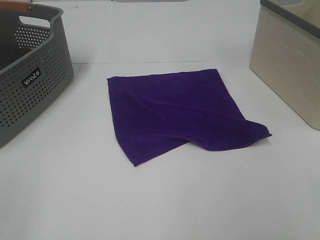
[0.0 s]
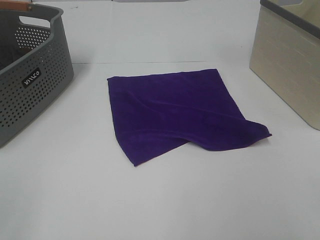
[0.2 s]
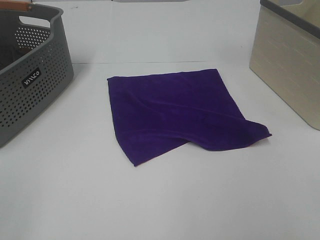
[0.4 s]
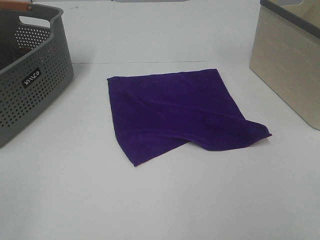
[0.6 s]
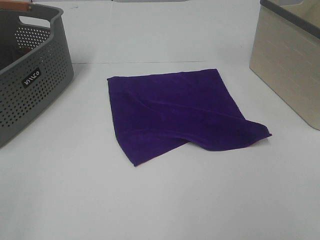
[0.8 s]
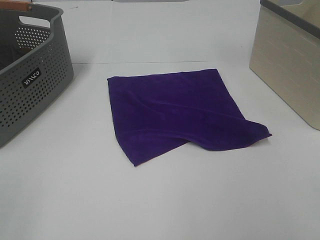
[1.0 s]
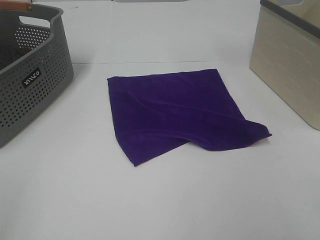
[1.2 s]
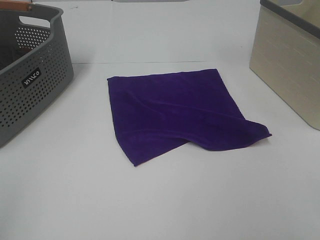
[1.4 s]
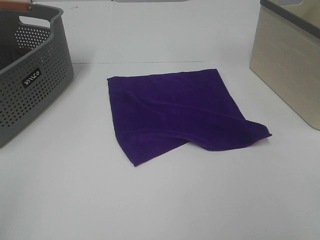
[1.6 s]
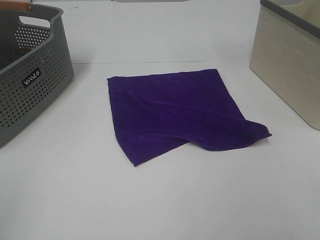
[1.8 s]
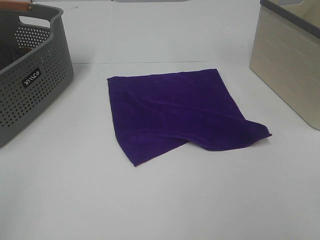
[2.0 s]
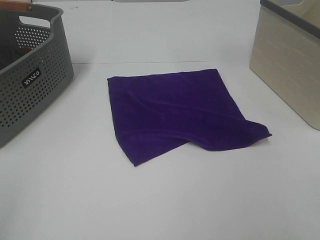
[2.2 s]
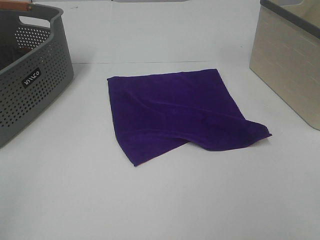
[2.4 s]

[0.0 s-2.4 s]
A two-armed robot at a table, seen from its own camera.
Task of the whole recording: Remove the towel and place it.
1.2 to 2.4 s: The two grippers keep their place.

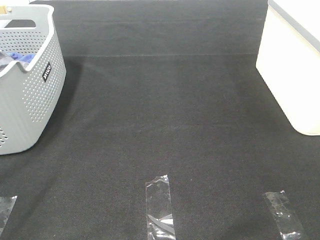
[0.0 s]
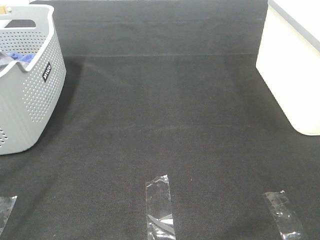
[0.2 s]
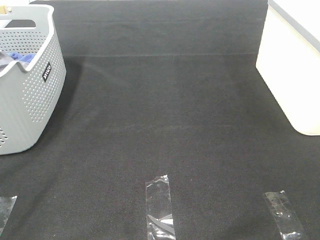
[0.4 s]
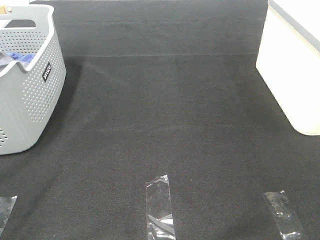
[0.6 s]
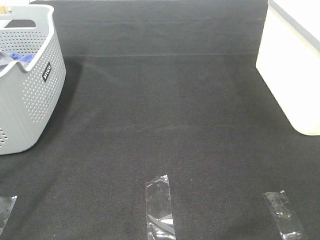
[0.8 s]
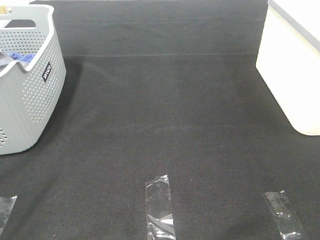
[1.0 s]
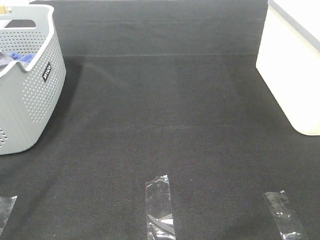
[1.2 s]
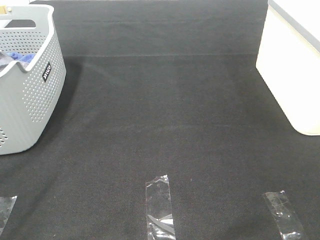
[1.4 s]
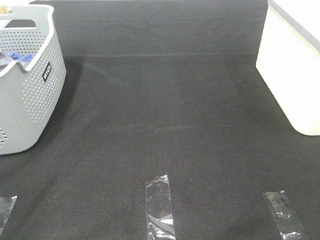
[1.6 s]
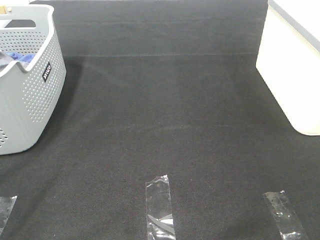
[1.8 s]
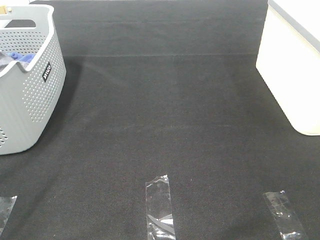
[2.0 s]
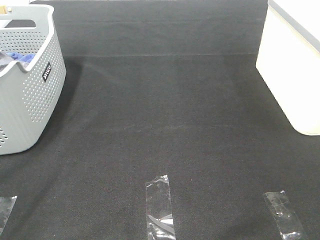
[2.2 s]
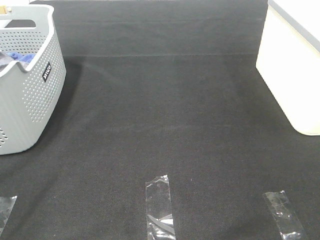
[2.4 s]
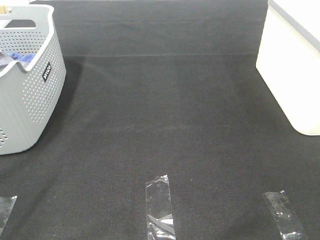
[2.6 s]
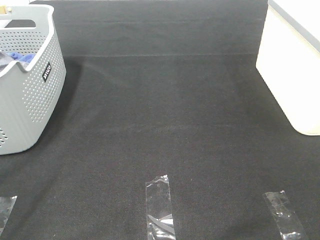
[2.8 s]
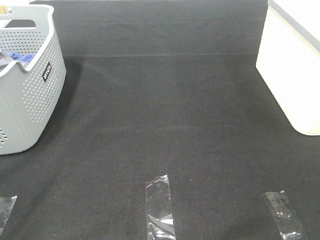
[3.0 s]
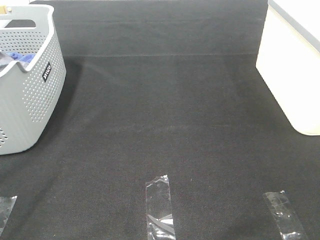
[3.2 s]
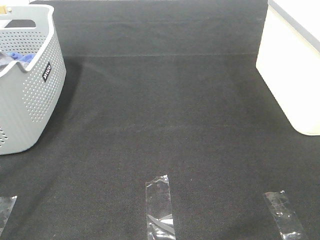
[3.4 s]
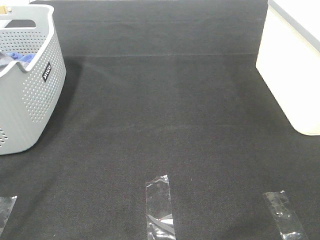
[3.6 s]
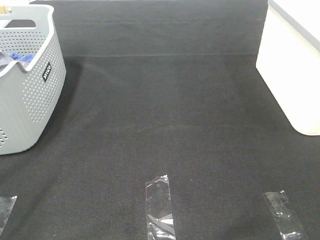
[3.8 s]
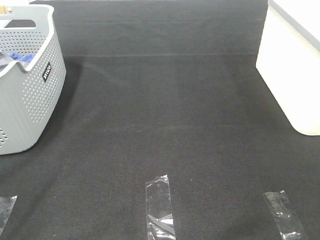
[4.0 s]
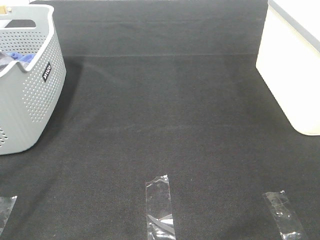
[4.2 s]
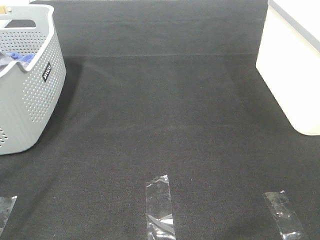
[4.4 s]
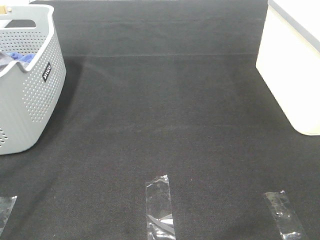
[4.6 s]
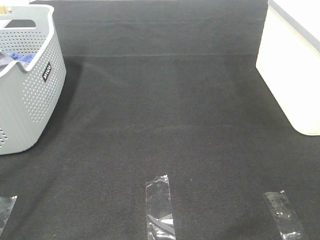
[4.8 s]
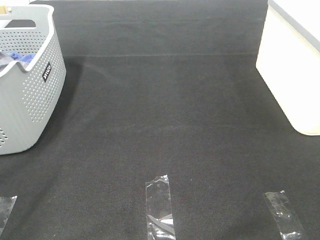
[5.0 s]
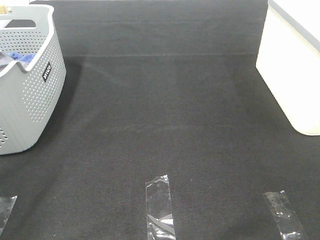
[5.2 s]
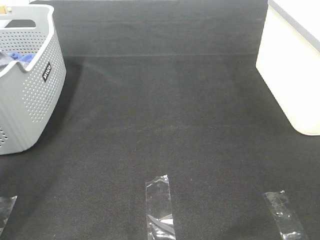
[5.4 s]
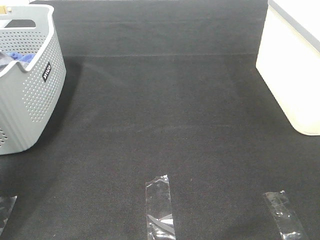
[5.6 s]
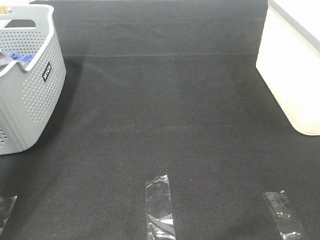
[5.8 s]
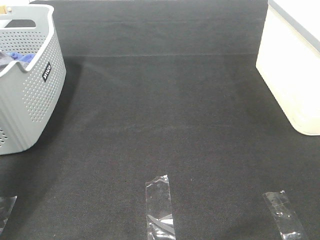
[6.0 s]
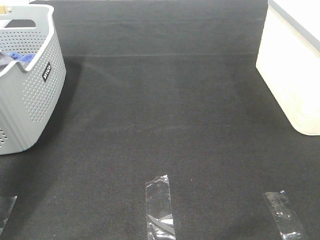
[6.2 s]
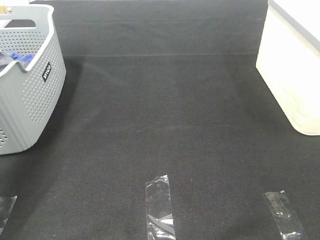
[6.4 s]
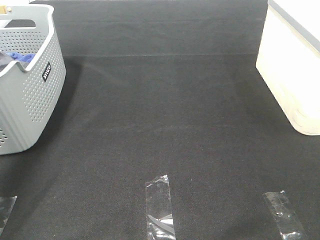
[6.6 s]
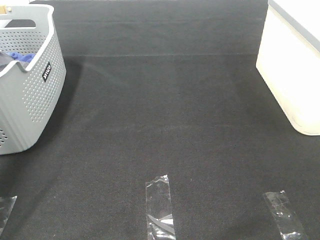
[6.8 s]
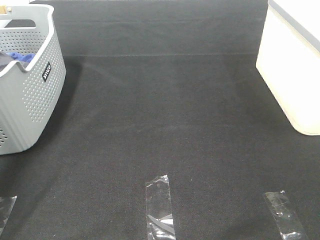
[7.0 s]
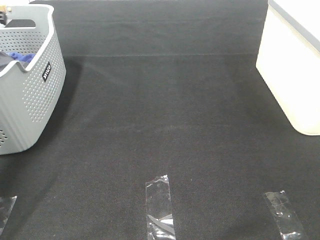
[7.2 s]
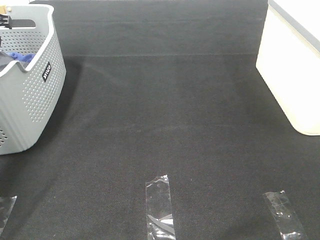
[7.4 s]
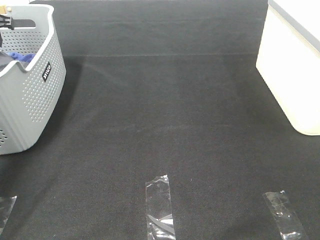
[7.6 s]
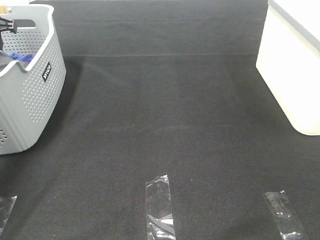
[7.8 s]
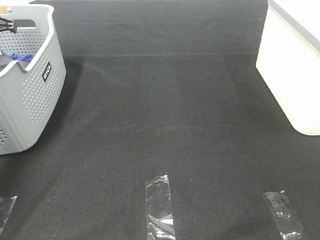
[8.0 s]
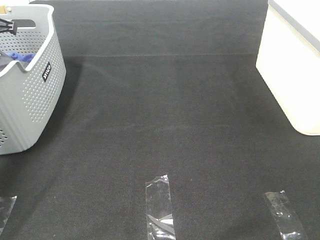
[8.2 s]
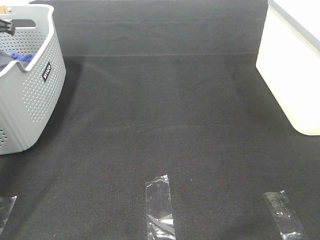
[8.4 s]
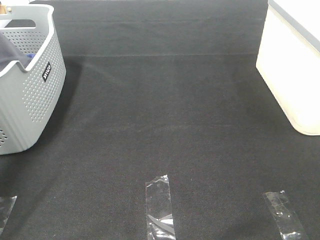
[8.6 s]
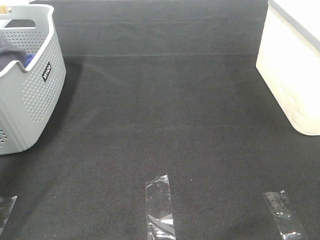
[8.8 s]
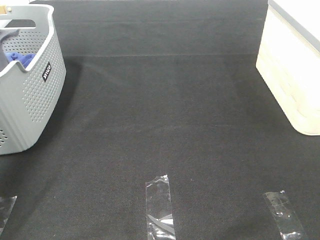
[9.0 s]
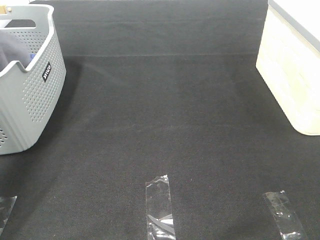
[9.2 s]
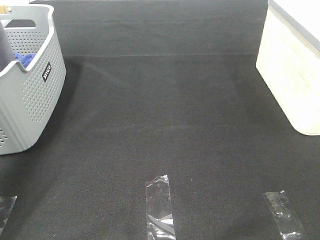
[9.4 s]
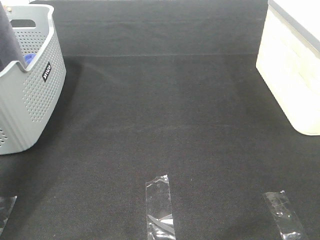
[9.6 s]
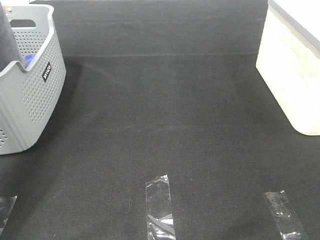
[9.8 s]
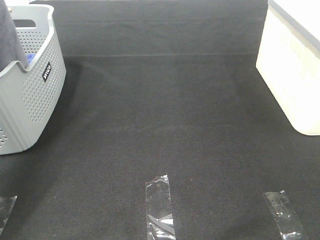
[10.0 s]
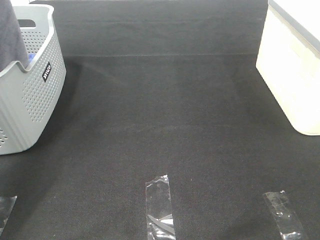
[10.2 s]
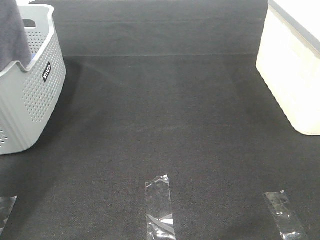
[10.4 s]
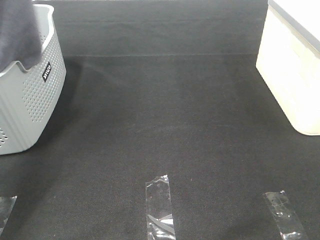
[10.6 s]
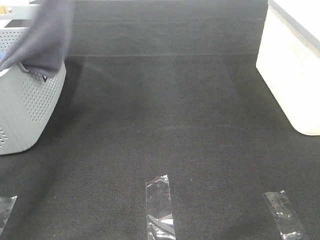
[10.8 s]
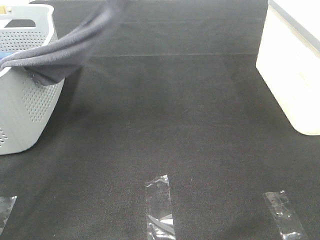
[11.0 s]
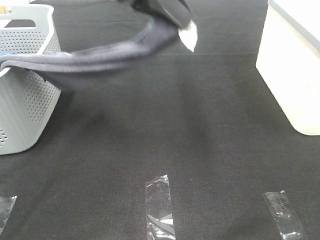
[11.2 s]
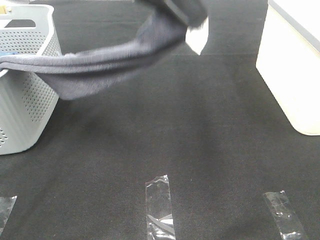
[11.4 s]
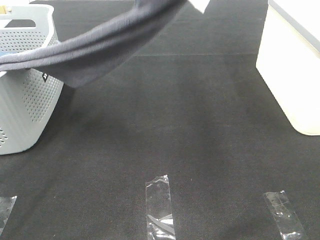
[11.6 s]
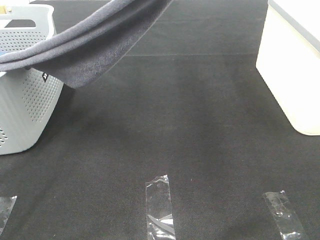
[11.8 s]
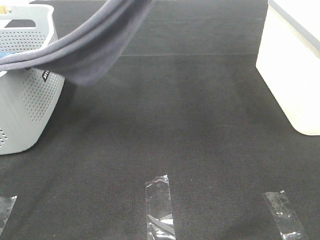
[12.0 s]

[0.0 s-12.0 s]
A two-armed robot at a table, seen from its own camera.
Task of the whole recording: Remove the towel and place it.
0.0 to 4.4 s: Both grippers stay about where they are.
4.4 to 6.0 s: The left gripper travels forward by approximately 30 cm.
6.0 to 7.6 s: The left gripper moves forward and downward, roughly 20 cm.
7.6 to 9.0 s: The left gripper heads upward and backward, covering approximately 20 cm, and closes.
9.0 to 10.4 s: The left gripper heads backward, upward and to the right, covering about 15 cm.
10.4 to 12.0 s: The left gripper moves to the right, about 20 cm.

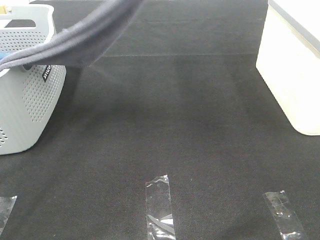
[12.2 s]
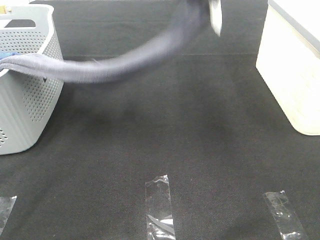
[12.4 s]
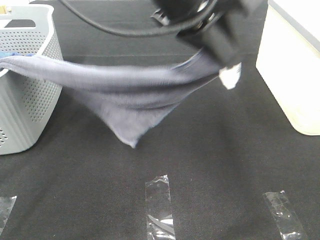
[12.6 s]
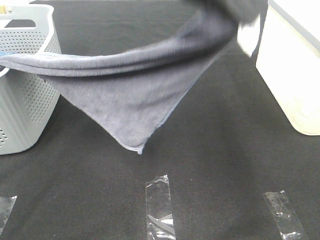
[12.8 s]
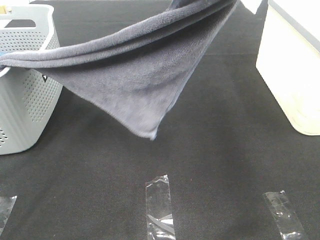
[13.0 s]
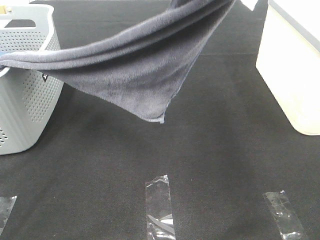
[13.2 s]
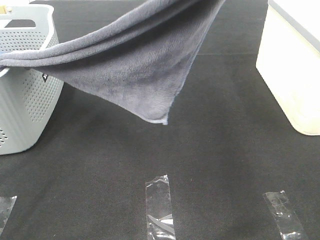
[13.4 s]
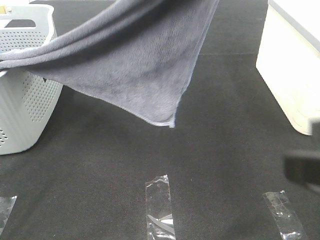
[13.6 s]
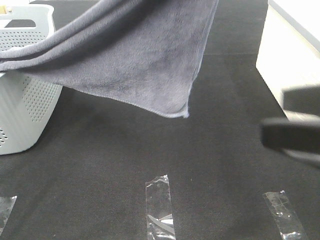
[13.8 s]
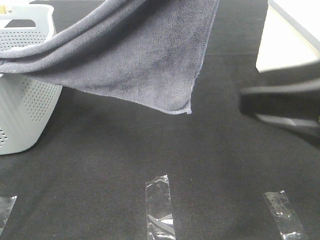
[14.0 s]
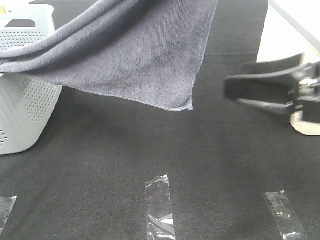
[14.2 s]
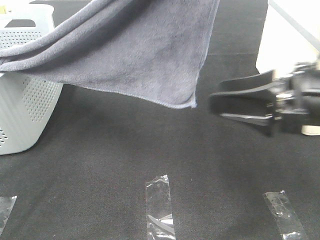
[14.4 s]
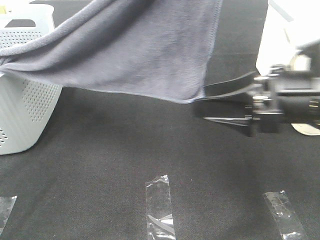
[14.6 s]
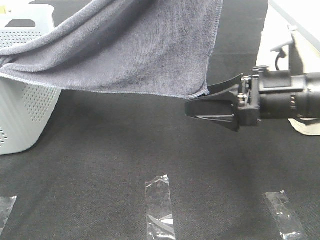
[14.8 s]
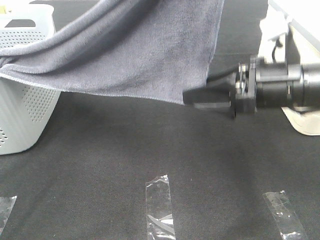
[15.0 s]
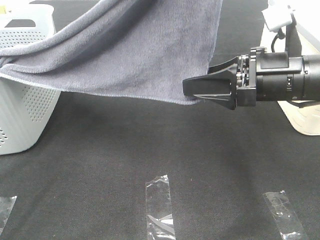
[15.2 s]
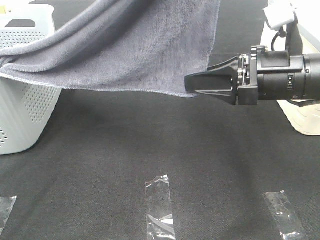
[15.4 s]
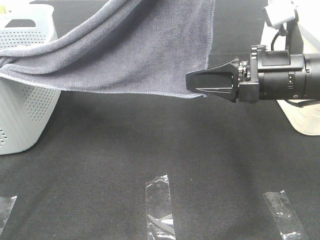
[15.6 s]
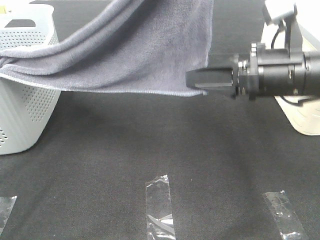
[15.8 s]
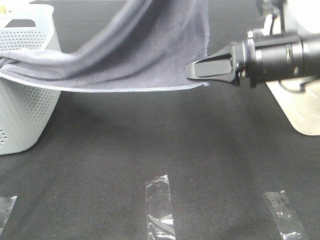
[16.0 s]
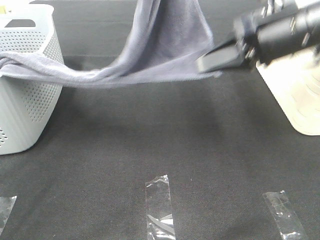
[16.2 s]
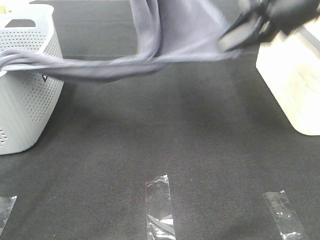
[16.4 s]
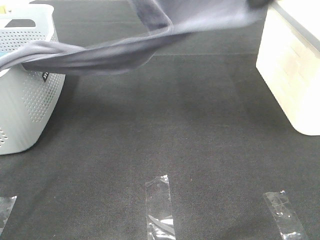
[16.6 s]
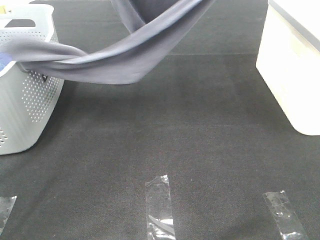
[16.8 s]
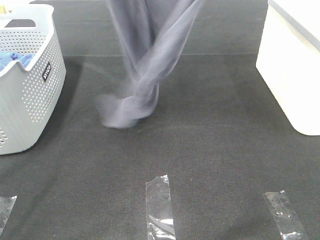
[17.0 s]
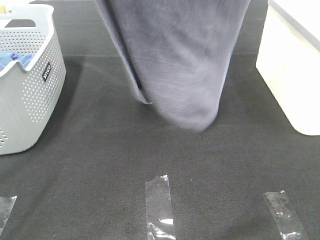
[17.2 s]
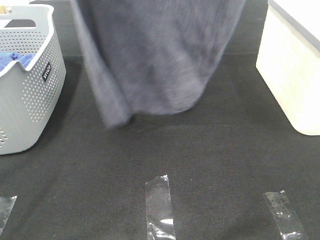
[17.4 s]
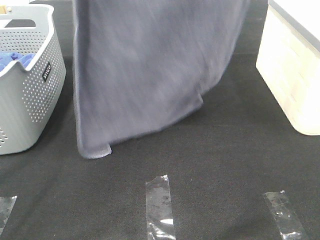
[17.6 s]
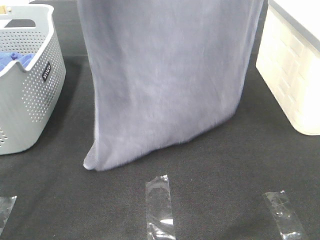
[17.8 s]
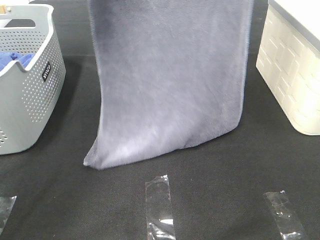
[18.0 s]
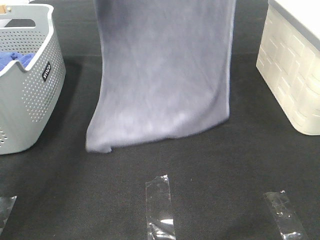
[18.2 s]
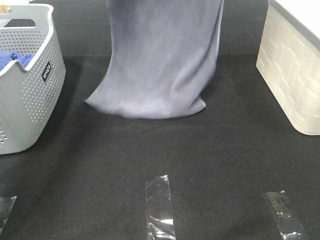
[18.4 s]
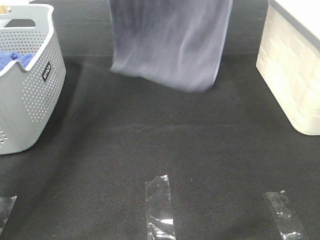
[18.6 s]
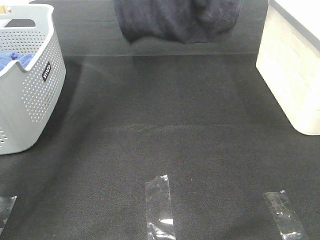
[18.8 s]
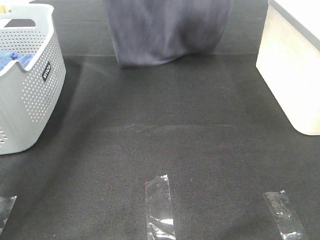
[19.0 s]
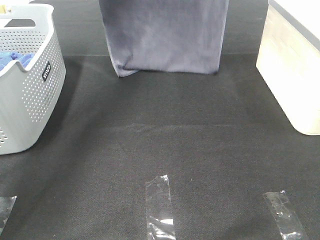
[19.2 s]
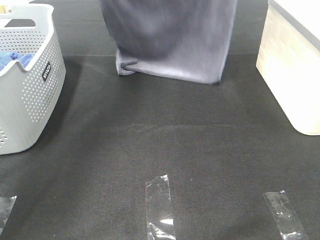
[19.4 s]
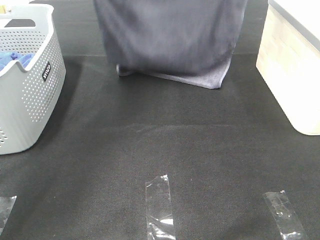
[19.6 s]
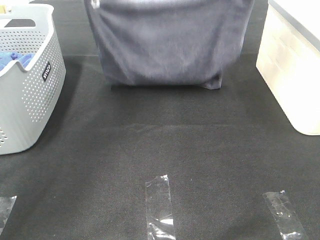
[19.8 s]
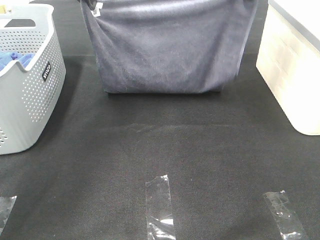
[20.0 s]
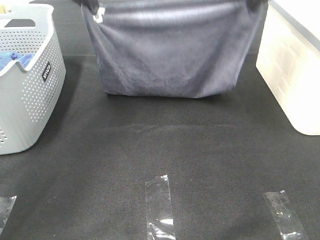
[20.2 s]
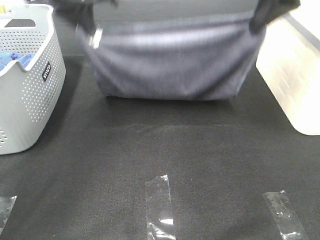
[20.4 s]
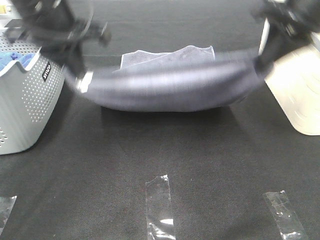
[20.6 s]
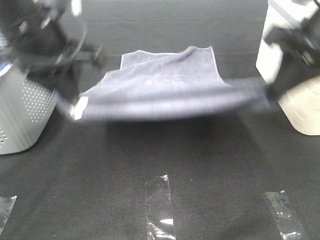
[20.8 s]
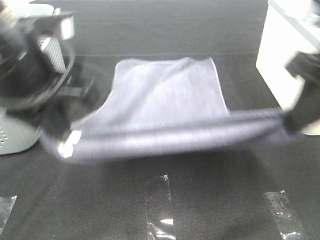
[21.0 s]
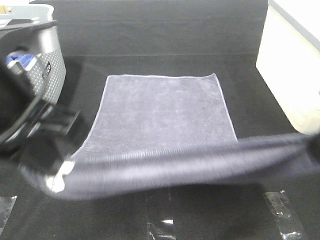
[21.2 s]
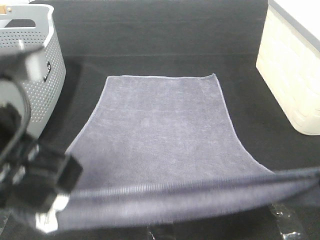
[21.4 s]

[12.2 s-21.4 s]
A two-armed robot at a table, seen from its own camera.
Task of the whole recording: Remove the towel and place it.
Step, 12.2 to 14.0 s: Right hand: grab a corner of the grey towel and straighten it.
Step, 14.2 to 17.8 s: Left hand: spread the grey towel flat on the table.
Step, 14.2 to 18.2 s: Right hand: spread the grey towel flat on the table.
12.2 to 13.8 s: The right gripper travels forward and to the left by approximately 10 cm; the left gripper shifts roughly 10 cm backward and upward.
13.8 to 15.2 s: The right gripper heads forward and downward, covering approximately 15 cm, and closes up.
15.2 to 16.8 s: The right gripper travels upward by some 25 cm, and closes up. The left gripper is displaced forward and to the left by roughly 15 cm.
16.8 to 18.4 s: The left gripper travels forward and downward by about 15 cm, while the right gripper travels forward by about 15 cm.
18.4 to 19.8 s: The right gripper moves downward and backward, roughly 10 cm; the left gripper shifts some 5 cm downward.
19.8 to 21.4 s: The grippers both shift backward by about 30 cm.
